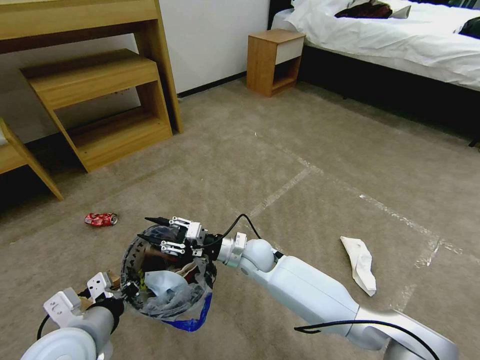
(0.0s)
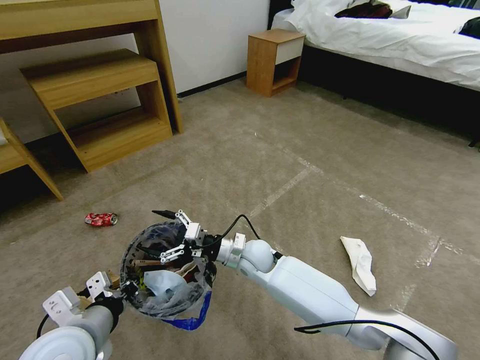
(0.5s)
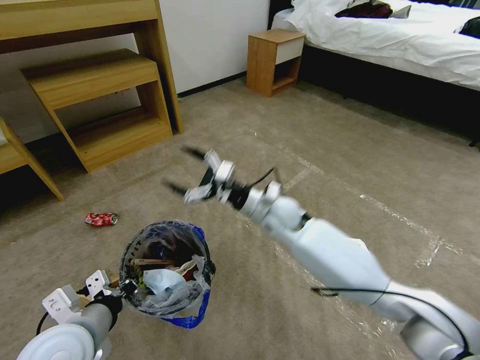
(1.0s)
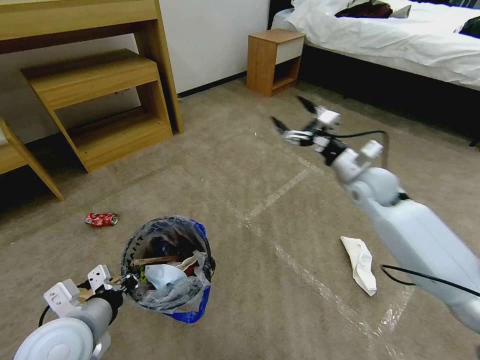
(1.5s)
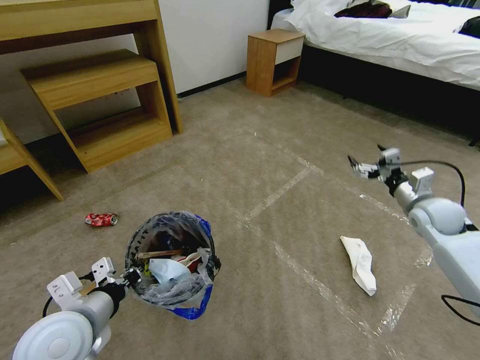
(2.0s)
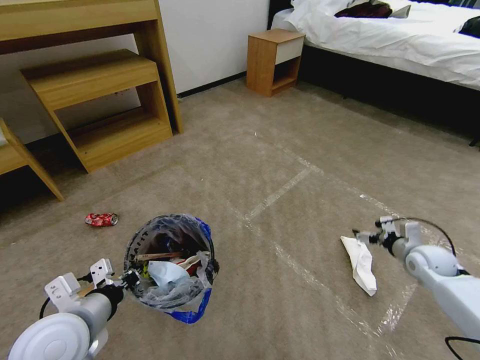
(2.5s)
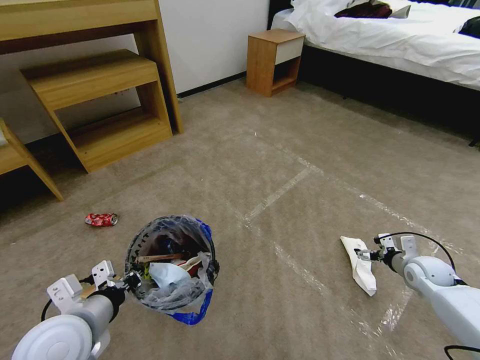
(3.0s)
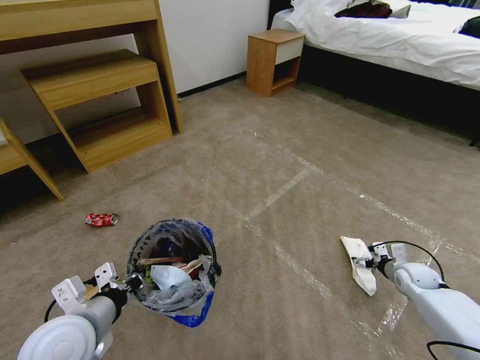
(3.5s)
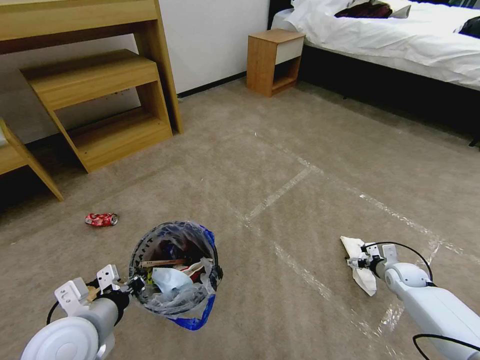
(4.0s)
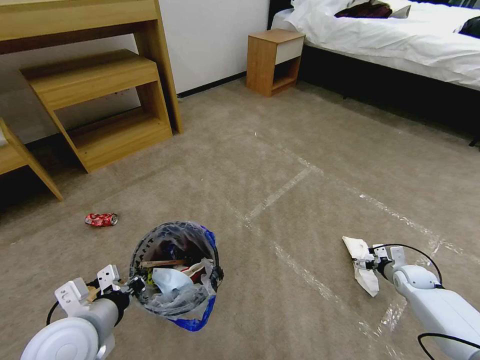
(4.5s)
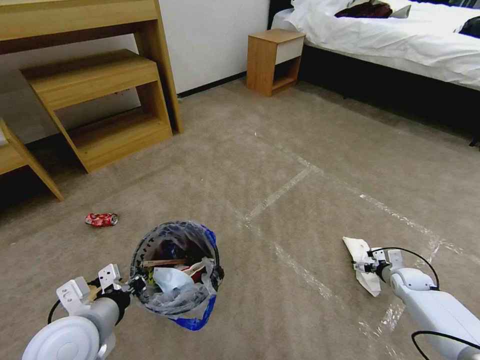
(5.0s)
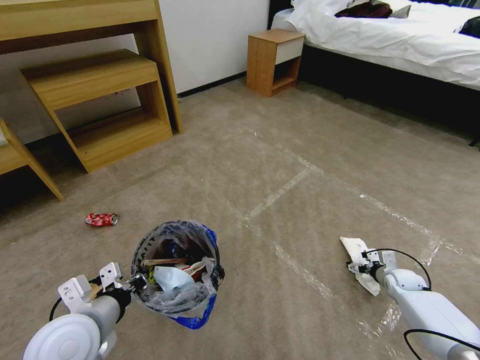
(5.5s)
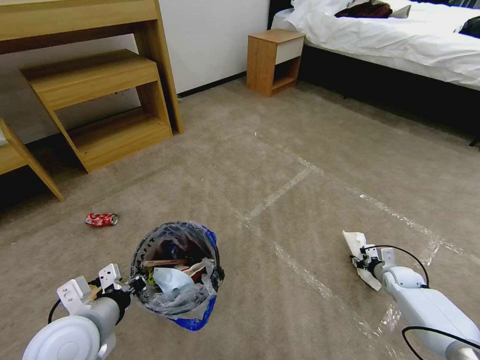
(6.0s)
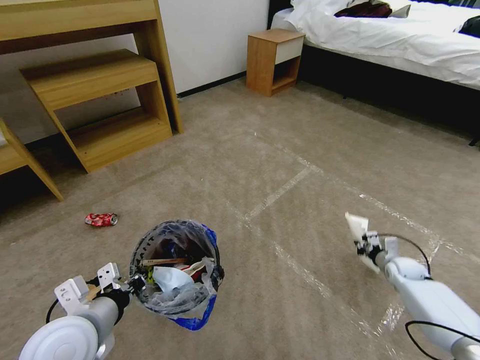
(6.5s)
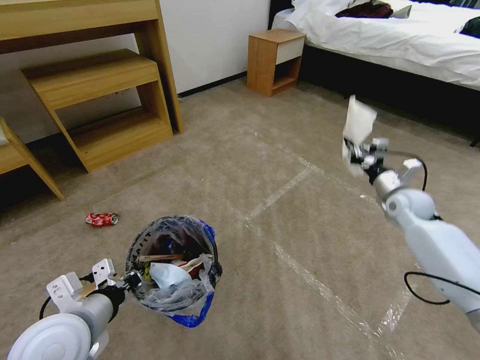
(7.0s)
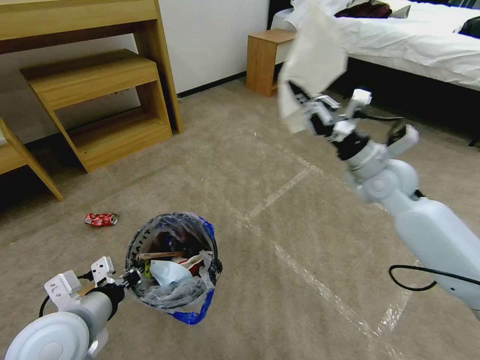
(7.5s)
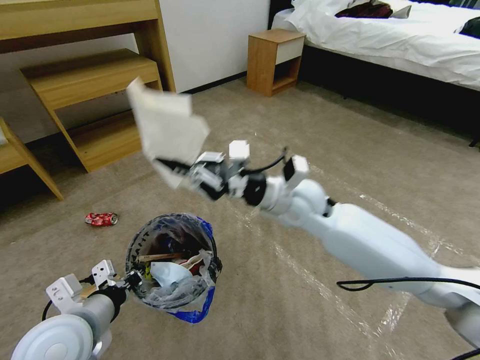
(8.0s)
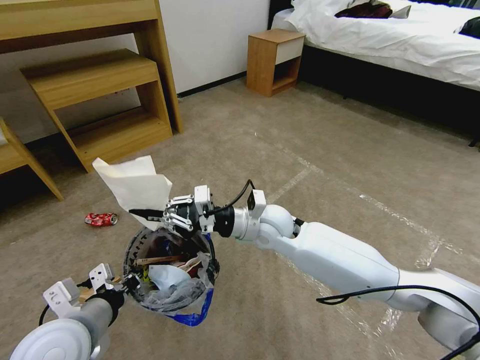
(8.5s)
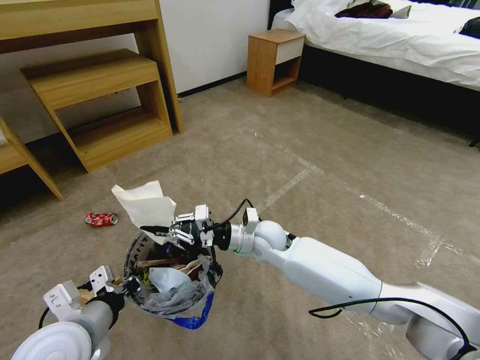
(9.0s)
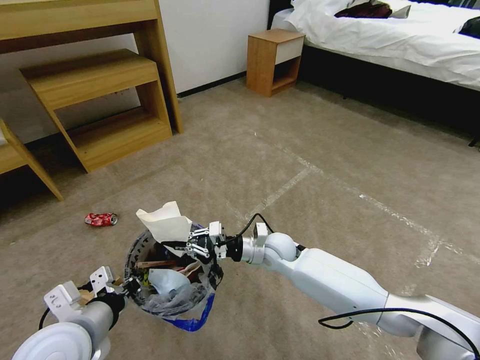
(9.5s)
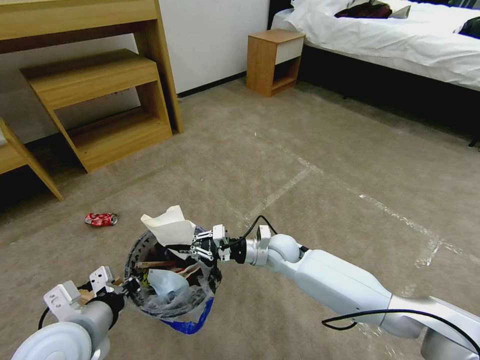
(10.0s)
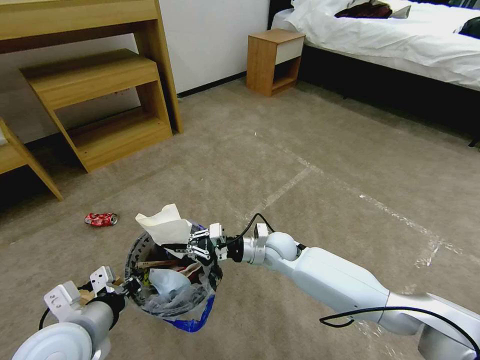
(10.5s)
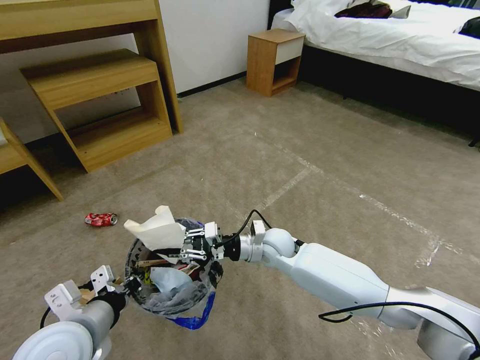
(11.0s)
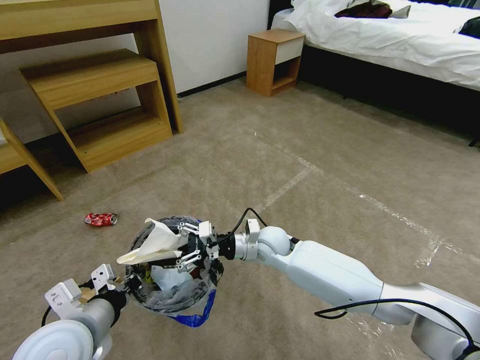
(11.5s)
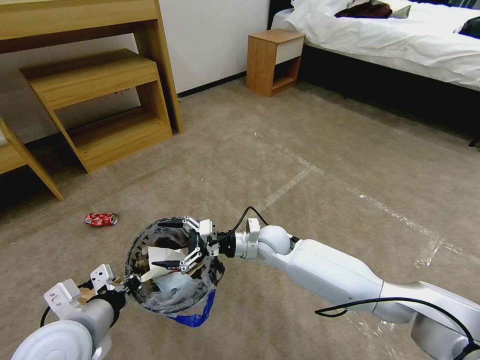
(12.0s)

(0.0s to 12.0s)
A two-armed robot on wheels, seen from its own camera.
Task of the whole recording: Pick up the trash bin and place the garbage on the floor into it.
0.0s - 2.0s: The right gripper heads to the right, covering about 40 cm, and opens up.
2.0s - 4.0s: The right gripper goes some 20 cm downward.
4.0s - 6.0s: The right gripper closes.
6.0s - 8.0s: The right gripper shifts about 50 cm to the left and upward, and closes.
8.0s - 10.0s: The right gripper is displaced downward by some 20 cm.
10.0s - 12.0s: The right gripper opens its fingers.

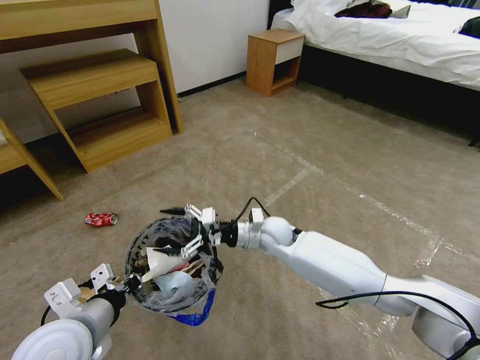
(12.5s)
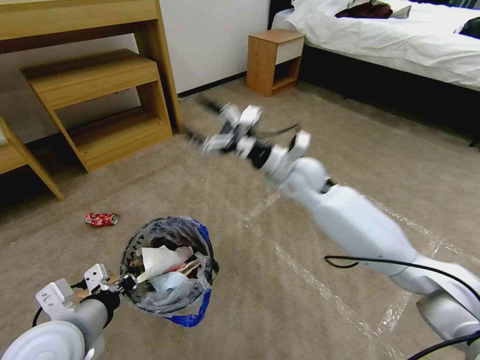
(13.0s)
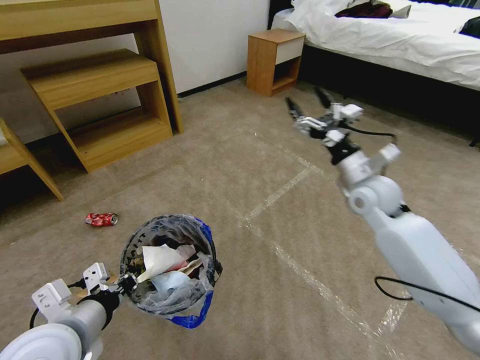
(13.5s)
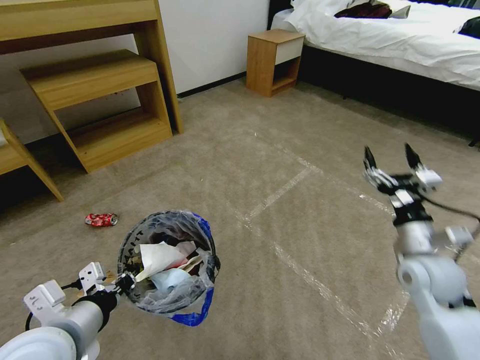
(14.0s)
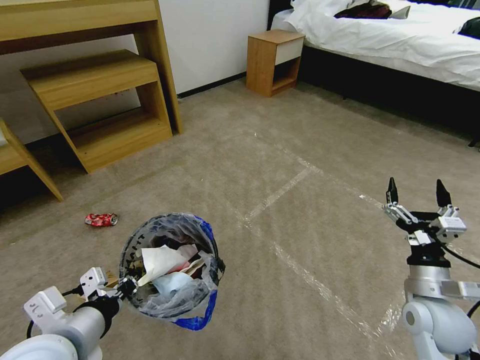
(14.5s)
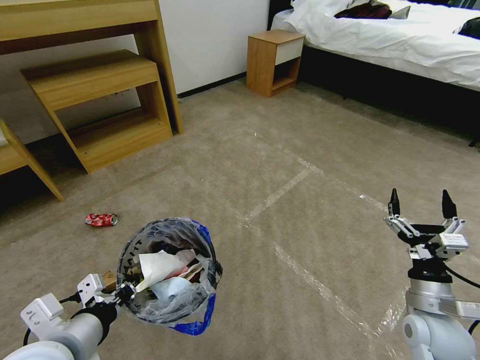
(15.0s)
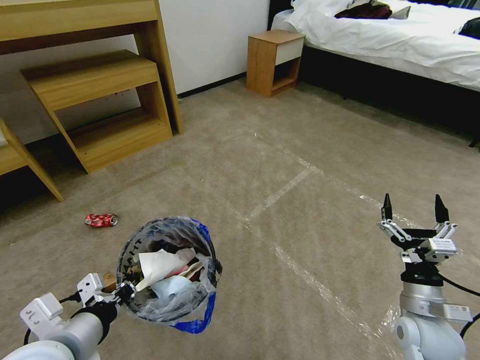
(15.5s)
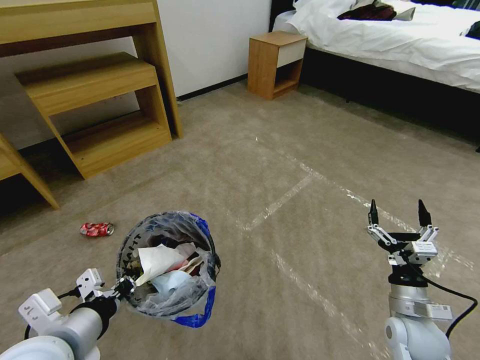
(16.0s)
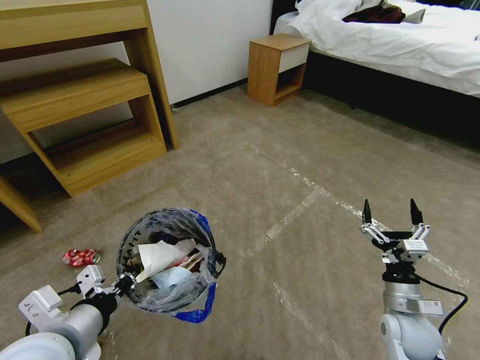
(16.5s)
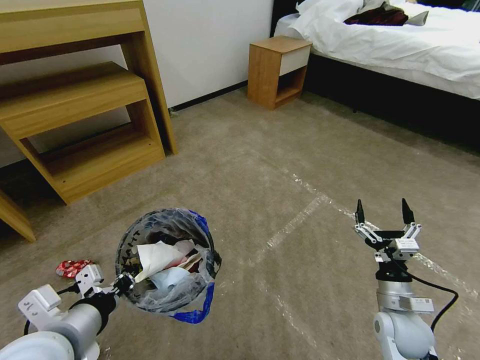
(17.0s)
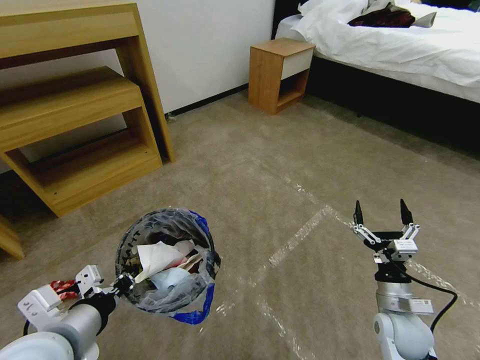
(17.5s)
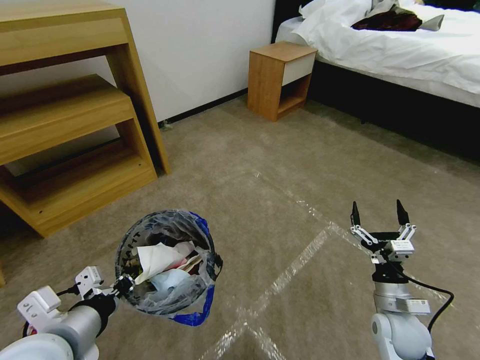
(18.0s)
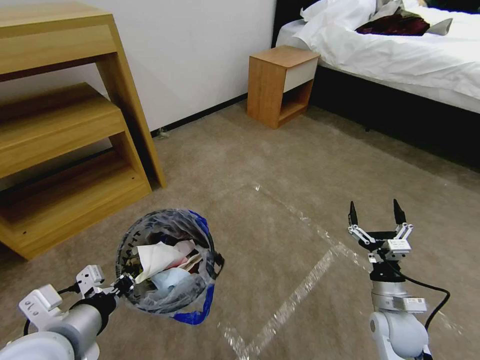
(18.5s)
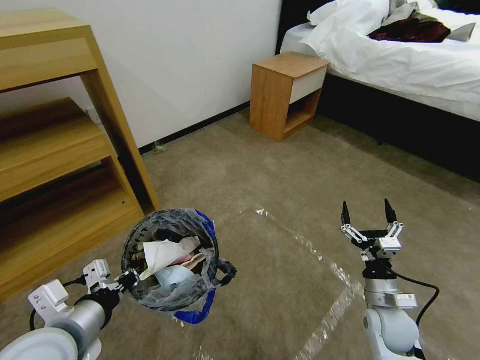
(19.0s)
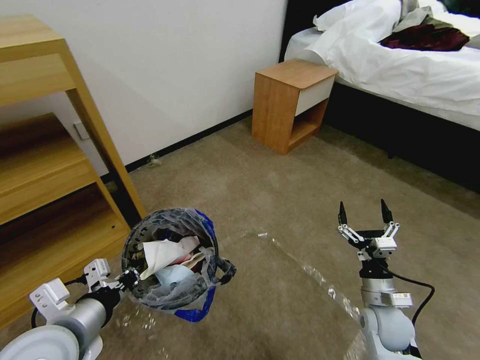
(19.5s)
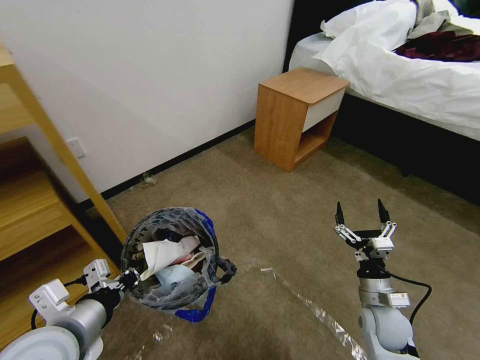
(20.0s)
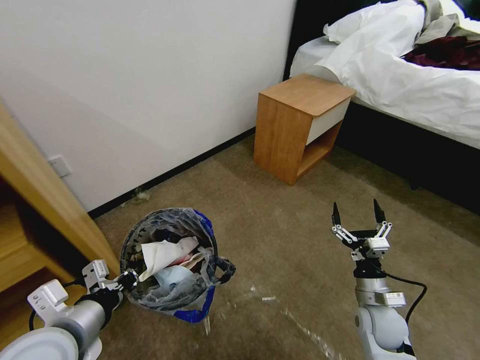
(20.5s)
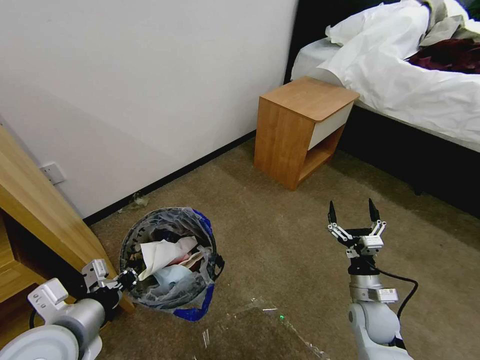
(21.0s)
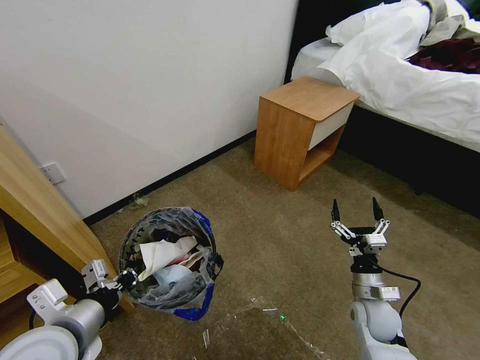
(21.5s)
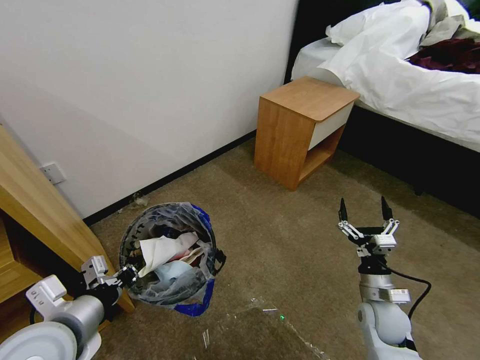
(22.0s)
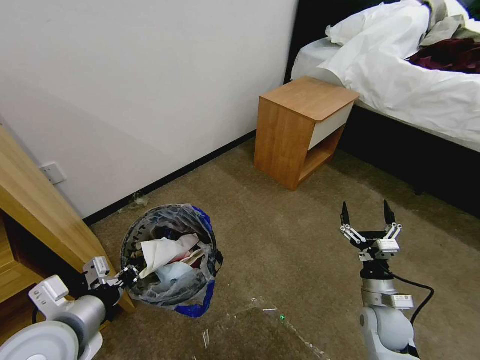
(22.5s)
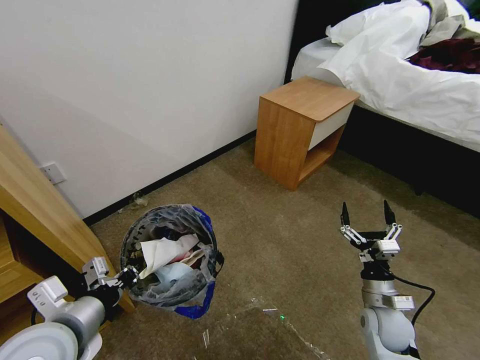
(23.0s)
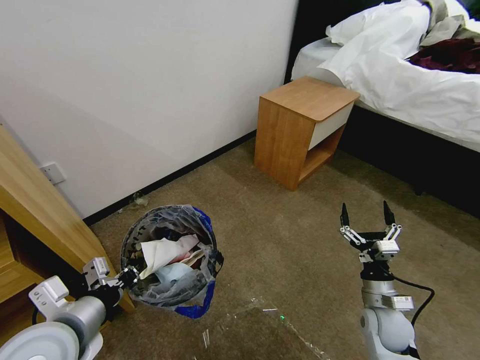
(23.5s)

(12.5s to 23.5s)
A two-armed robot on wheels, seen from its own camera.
Task of the whole recording: Pick up the trash bin and place the garbage on the floor into it.
12.5s - 14.5s: The right gripper moves to the right and backward, approximately 35 cm.
14.5s - 16.0s: The right gripper is displaced downward by about 5 cm.
21.5s - 23.5s: There are only small adjustments of the grippers.

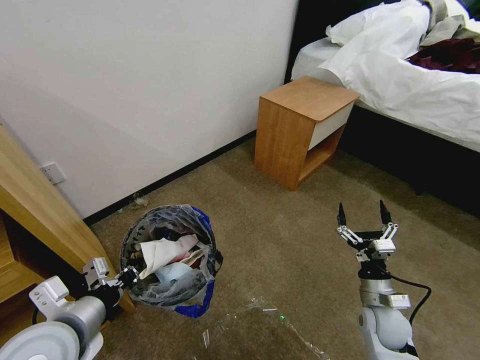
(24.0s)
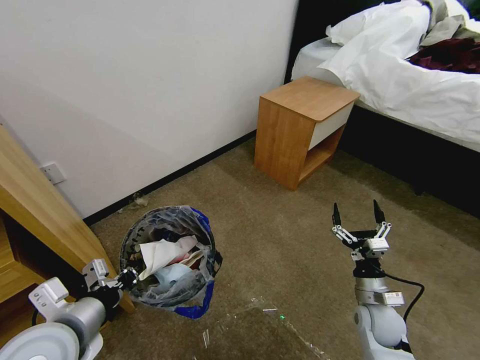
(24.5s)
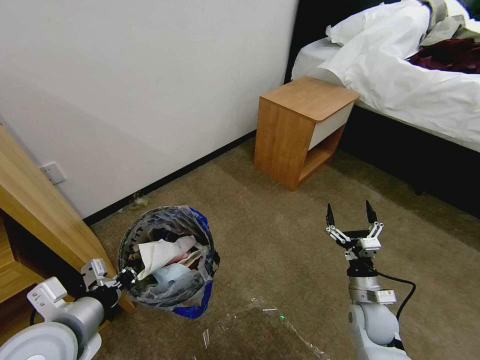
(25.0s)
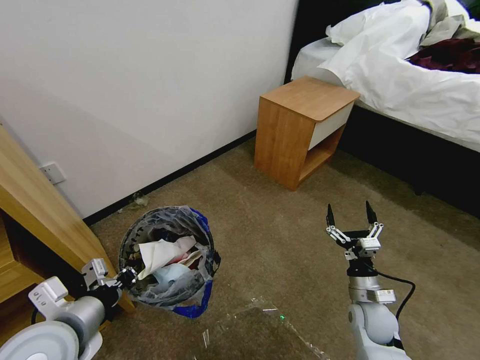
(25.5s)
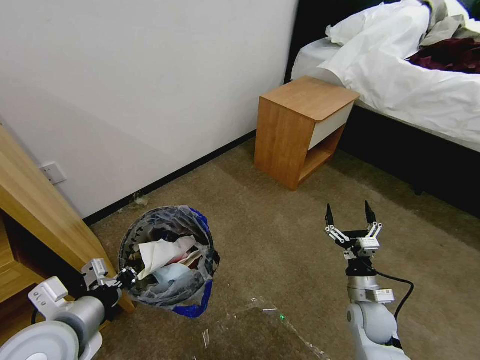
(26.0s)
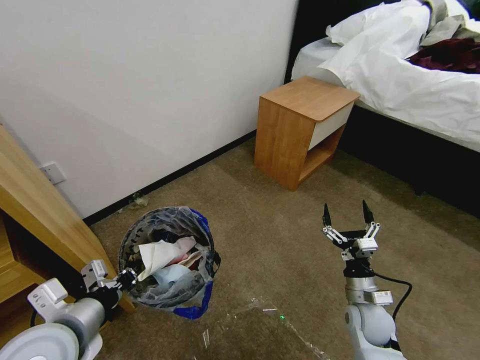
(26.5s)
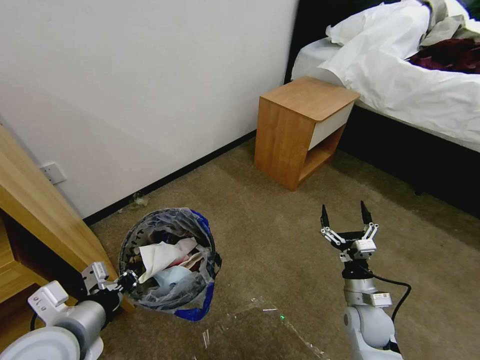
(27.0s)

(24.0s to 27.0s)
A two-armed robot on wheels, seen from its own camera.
Task of the whole recording: Pick up the trash bin and place the garbage on the floor into it.
24.0s - 27.0s: There are only small adjustments of the grippers.
